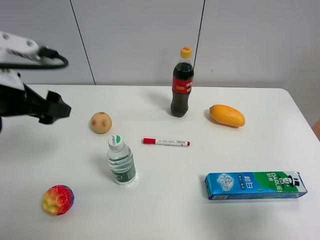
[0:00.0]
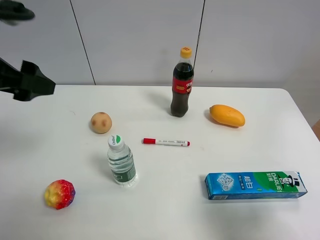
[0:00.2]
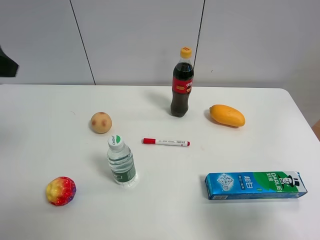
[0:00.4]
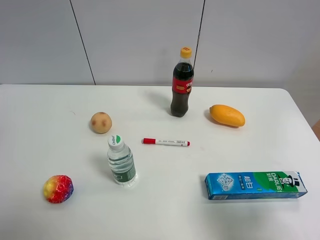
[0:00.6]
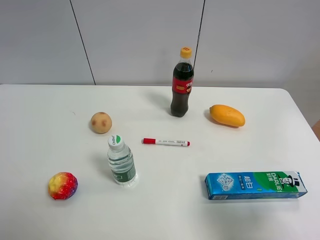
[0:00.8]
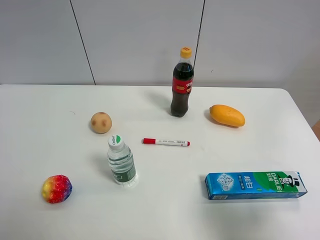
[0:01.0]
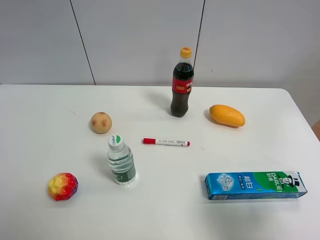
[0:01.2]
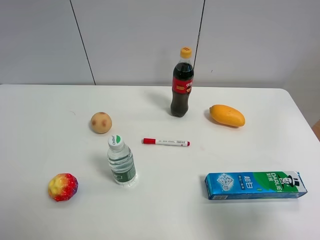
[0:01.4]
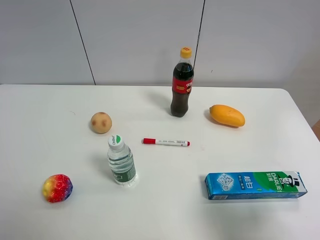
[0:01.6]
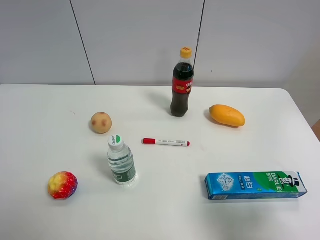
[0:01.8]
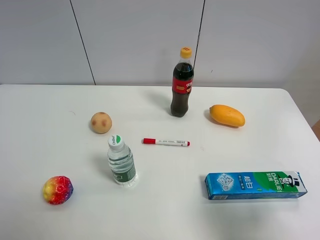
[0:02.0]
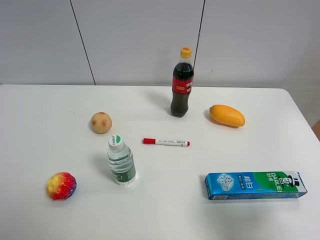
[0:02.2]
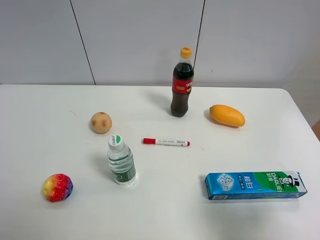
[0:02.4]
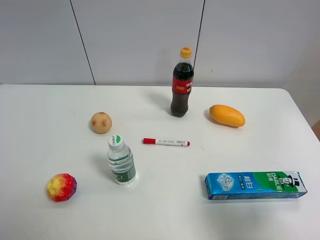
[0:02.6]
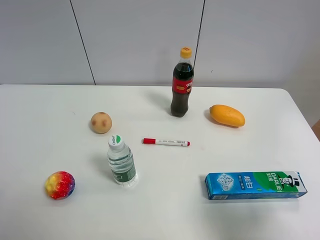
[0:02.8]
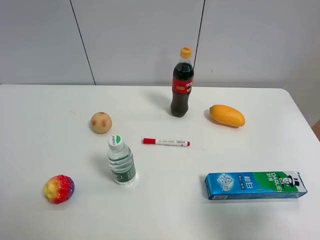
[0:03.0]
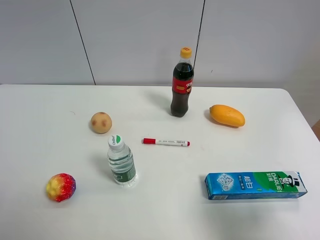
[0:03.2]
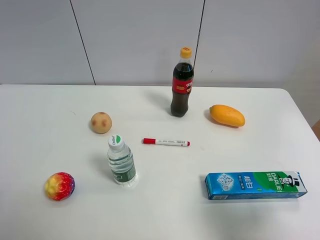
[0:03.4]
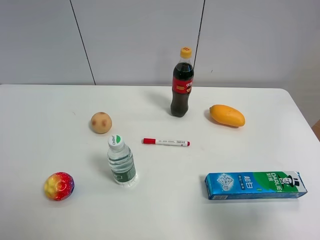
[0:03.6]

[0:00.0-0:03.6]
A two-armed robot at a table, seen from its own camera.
Task of the whole recording: the gripper move the object.
0.0 to 1.8 s: The left gripper moves backward, about 20 cm.

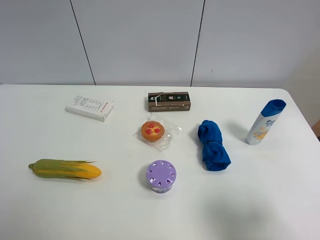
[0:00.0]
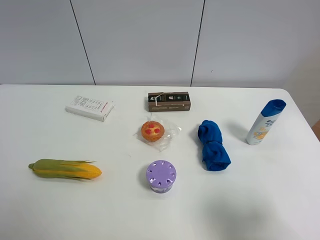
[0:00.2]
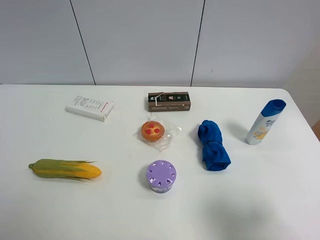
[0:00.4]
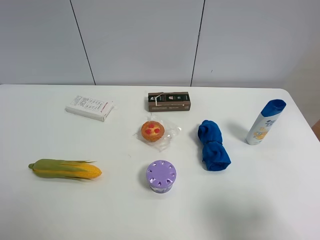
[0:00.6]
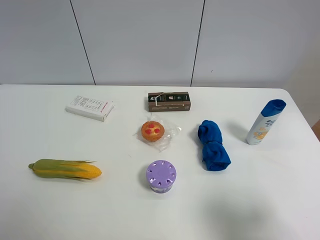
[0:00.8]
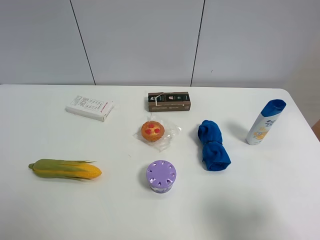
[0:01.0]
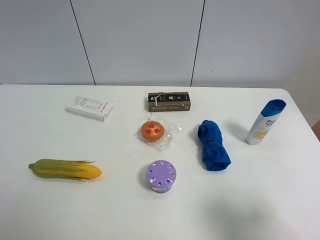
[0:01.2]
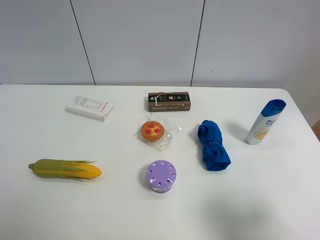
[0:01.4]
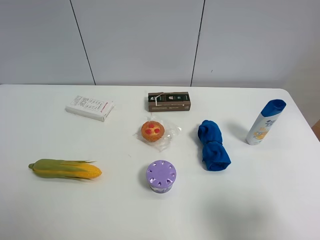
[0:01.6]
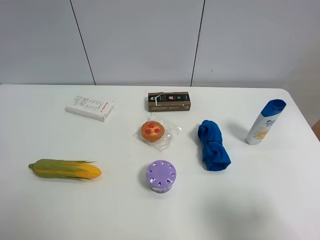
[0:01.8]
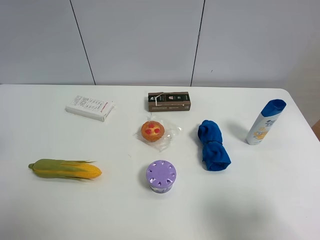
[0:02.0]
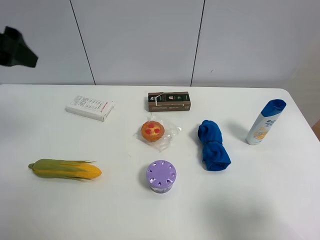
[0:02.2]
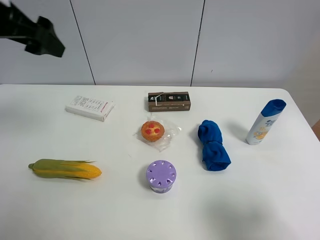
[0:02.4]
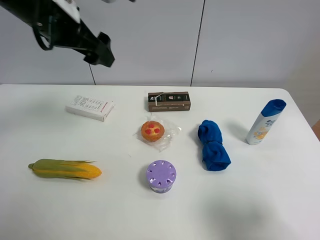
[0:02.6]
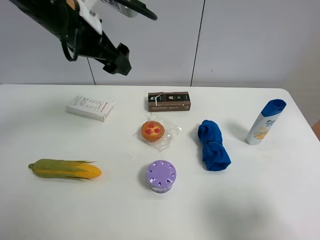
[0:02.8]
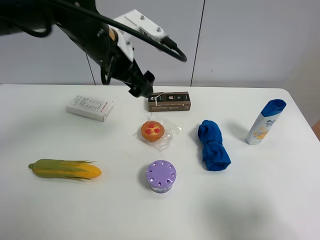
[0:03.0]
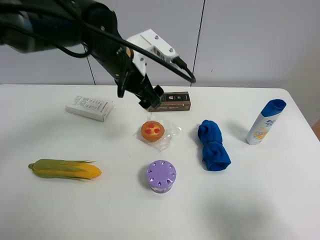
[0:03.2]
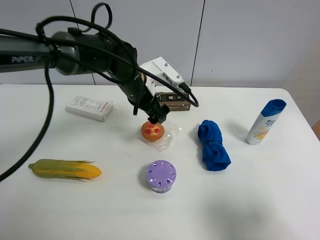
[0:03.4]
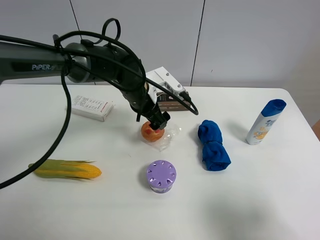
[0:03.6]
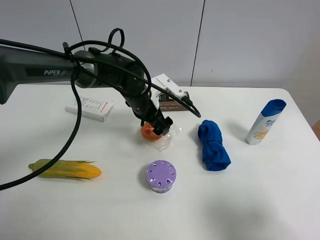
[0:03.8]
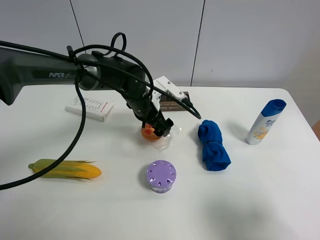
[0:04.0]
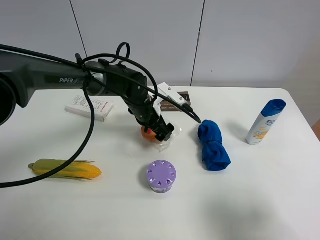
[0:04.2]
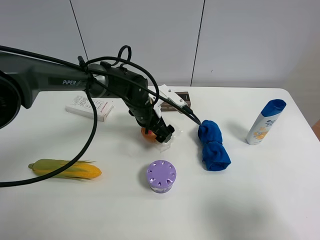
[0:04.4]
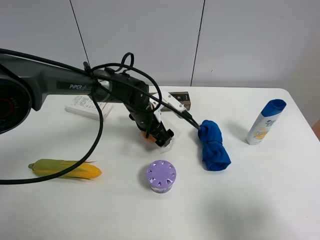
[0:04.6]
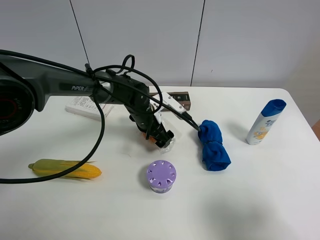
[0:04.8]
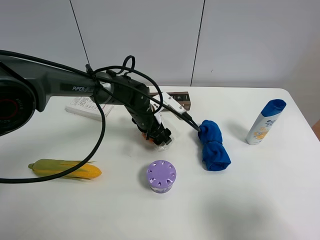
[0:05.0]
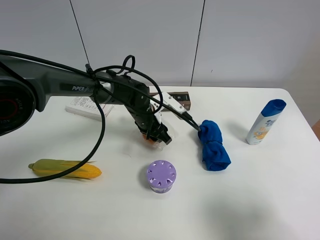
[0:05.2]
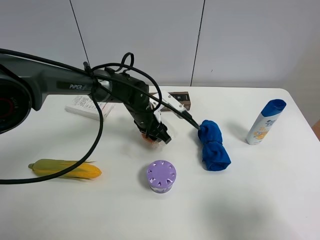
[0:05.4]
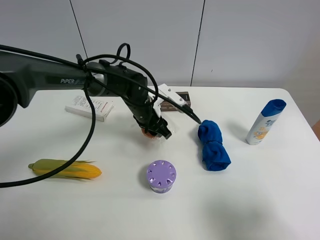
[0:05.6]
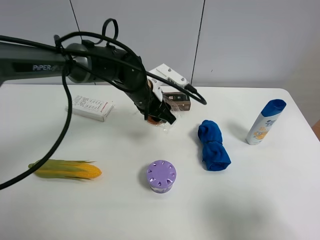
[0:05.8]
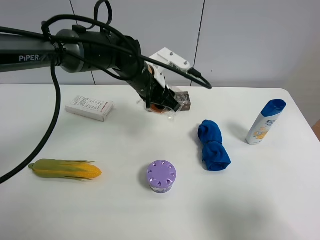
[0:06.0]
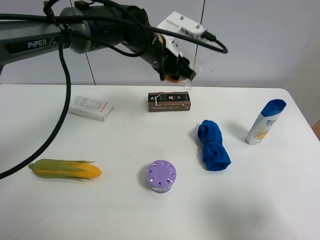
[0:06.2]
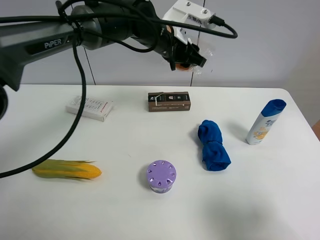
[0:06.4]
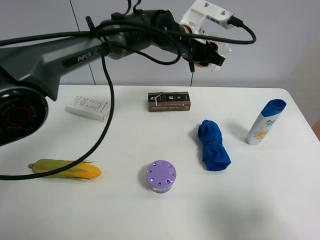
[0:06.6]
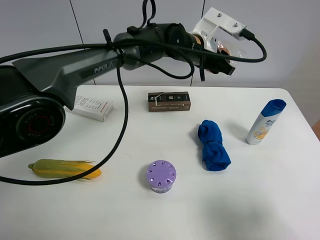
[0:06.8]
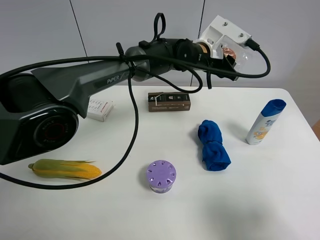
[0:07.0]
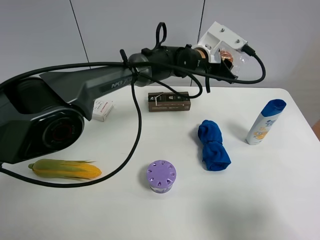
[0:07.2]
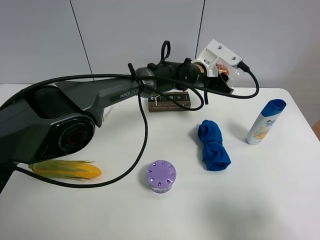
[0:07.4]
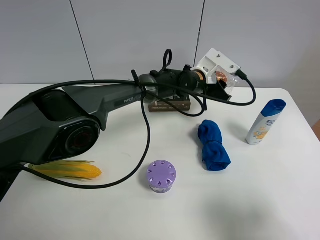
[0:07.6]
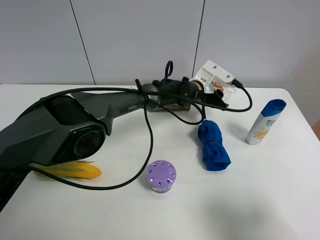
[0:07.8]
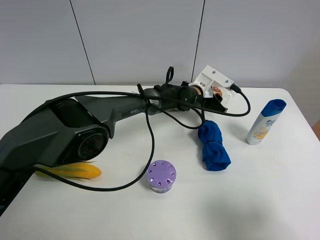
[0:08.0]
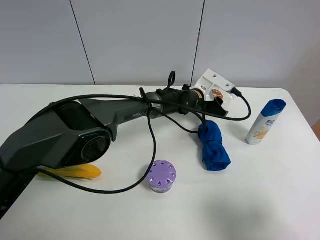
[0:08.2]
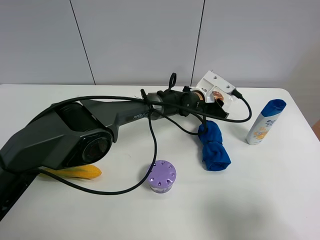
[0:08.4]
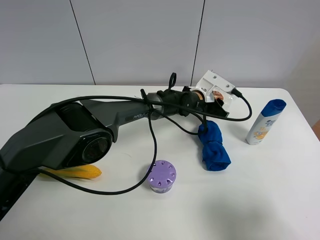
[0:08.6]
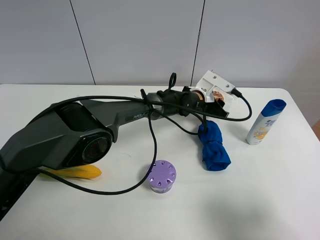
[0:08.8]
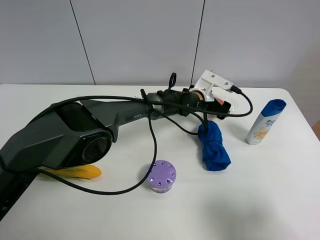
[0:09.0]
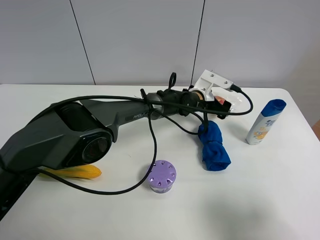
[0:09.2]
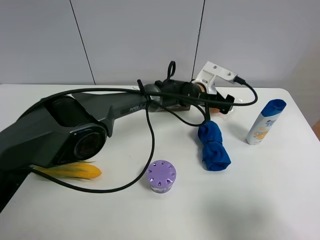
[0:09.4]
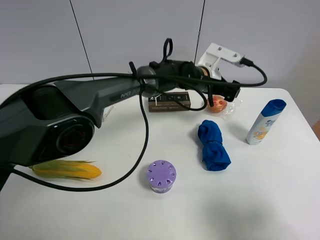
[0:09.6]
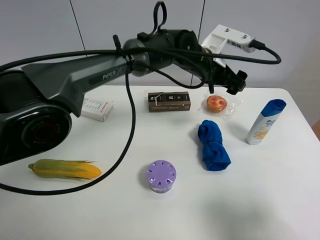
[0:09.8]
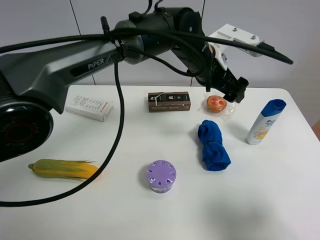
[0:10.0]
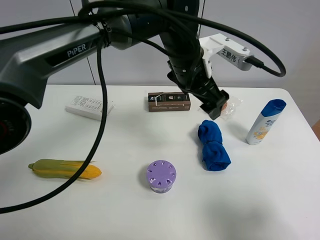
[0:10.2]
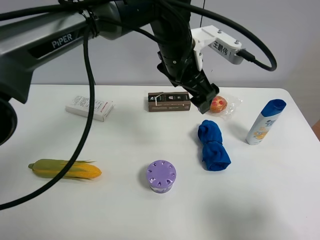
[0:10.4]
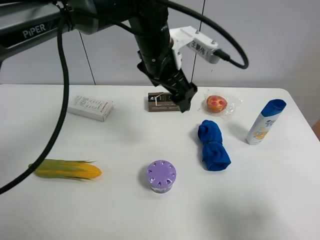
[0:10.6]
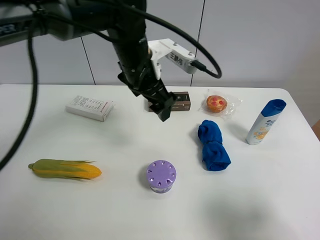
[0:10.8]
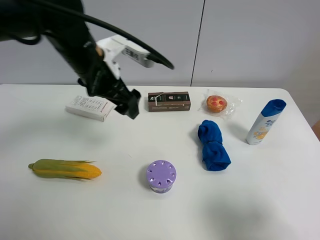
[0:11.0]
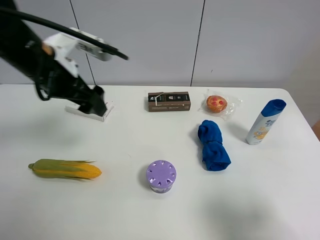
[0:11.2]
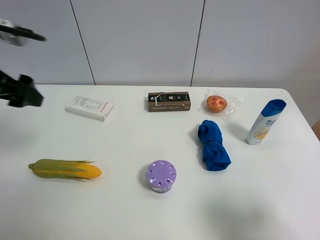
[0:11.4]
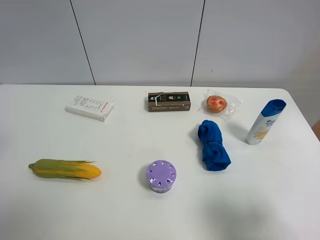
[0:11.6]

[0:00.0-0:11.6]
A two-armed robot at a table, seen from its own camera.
Task of the whole recording: the gripper move the object.
Step, 0.0 to 5.4 s: Grasp the egg tart with the left gripper.
Step, 5.6 to 8.8 s: Place the egg tart on the table with the left gripper.
1.4 to 2.8 s: The left gripper is displaced forward and to the right by about 35 cm.
2.8 to 4.4 s: The left gripper shifts about 20 cm downward.
4.4 to 5.8 s: The left gripper moves upward, some 5 cm, and closes up.
5.8 to 7.2 s: The left gripper heads to the right and forward, covering some 15 cm.
7.2 to 8.8 s: The left gripper is displaced downward by some 10 cm, and opens.
8.8 to 10.2 s: The left gripper shifts about 20 cm upward and backward, and opens its fingers.
10.2 to 11.6 s: The left gripper heads to the left and backward, covering about 40 cm.

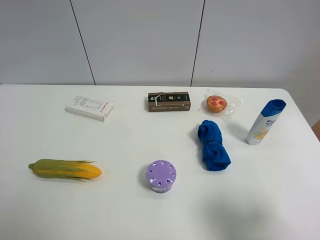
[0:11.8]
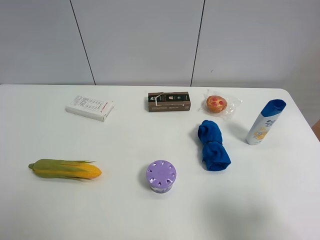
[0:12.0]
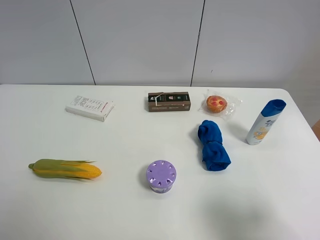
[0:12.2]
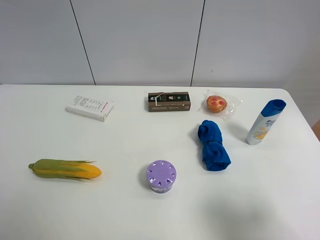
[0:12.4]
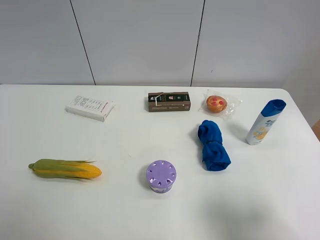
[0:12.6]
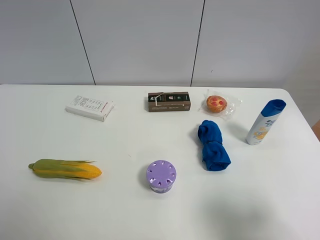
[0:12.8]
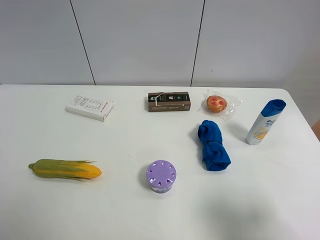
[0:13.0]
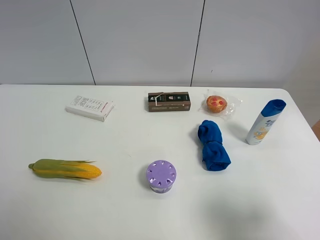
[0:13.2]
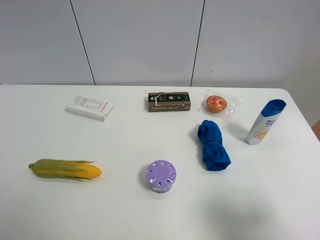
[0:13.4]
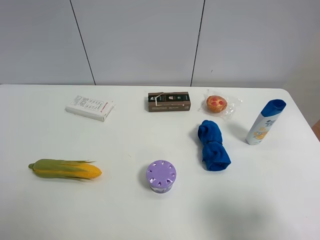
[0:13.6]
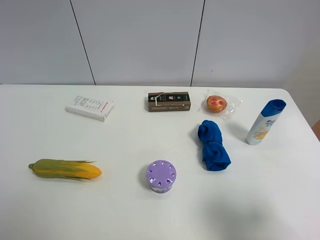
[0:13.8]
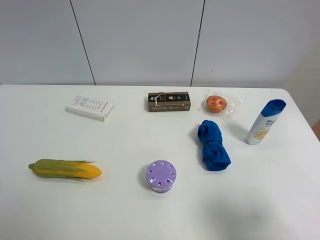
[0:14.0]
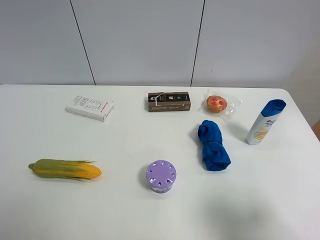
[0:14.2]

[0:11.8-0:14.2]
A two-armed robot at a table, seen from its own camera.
Task of the whole recording: the gripper move the object.
13.0 to 14.2 s: Both grippers stay put.

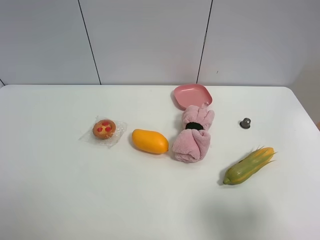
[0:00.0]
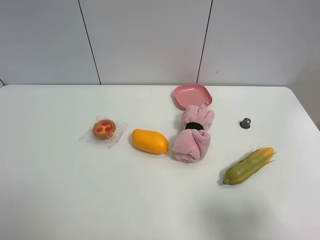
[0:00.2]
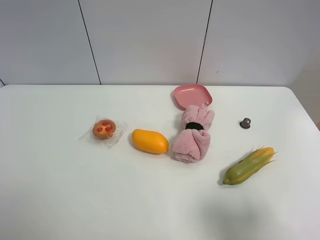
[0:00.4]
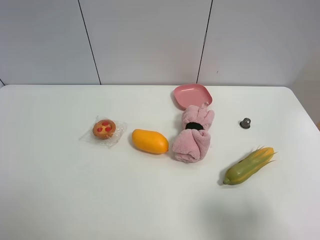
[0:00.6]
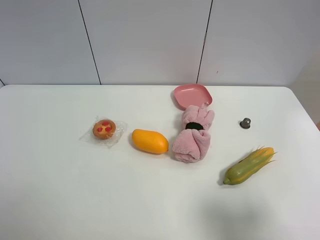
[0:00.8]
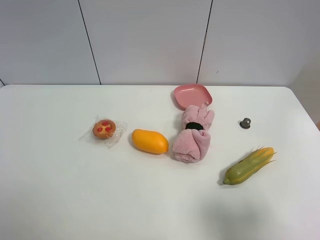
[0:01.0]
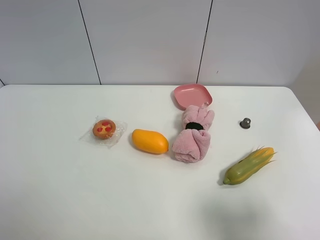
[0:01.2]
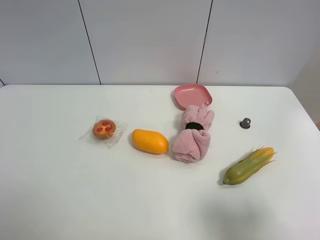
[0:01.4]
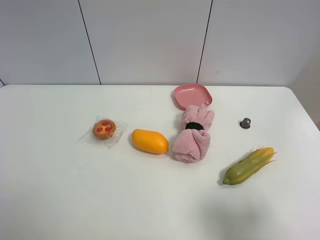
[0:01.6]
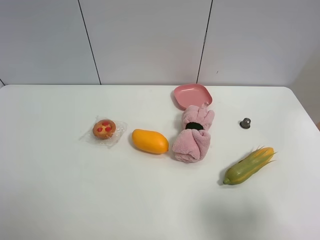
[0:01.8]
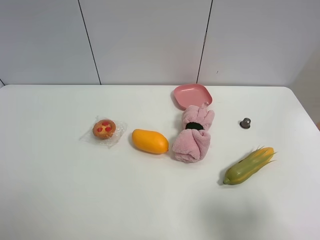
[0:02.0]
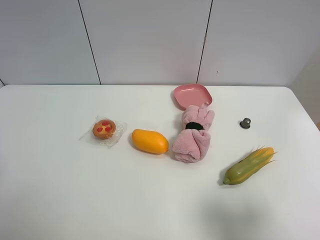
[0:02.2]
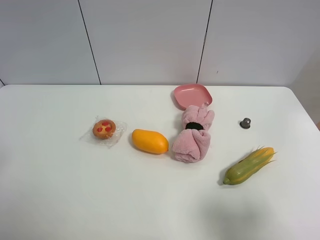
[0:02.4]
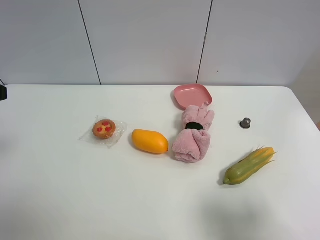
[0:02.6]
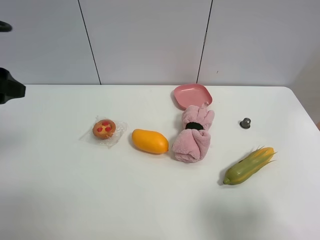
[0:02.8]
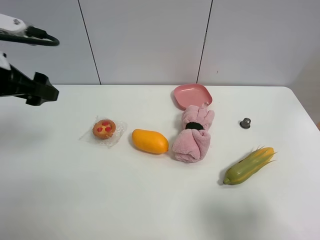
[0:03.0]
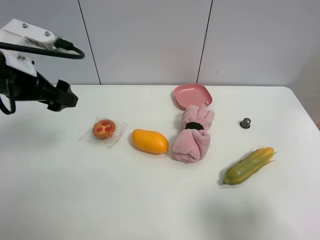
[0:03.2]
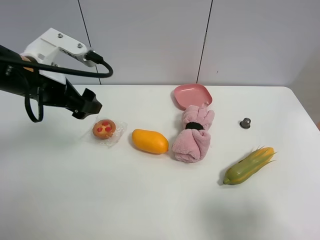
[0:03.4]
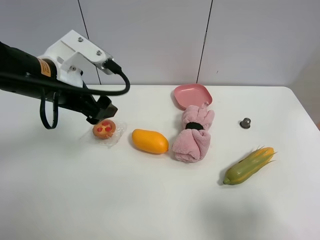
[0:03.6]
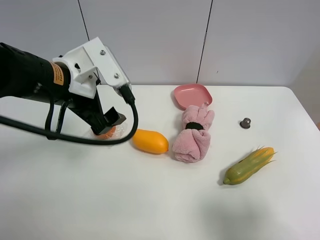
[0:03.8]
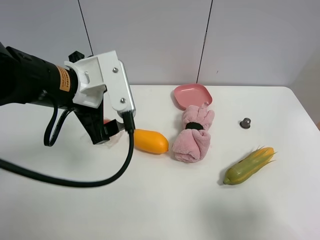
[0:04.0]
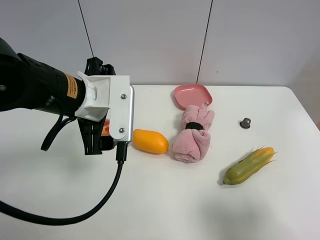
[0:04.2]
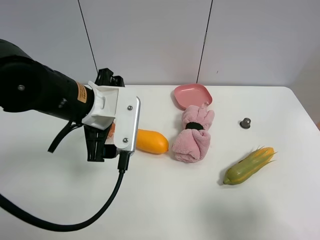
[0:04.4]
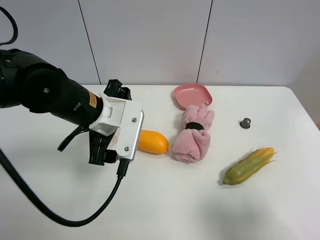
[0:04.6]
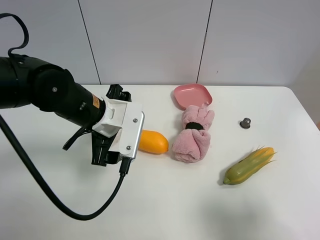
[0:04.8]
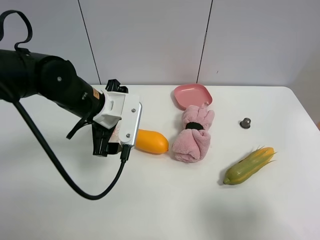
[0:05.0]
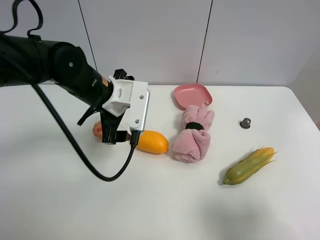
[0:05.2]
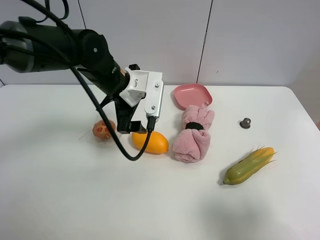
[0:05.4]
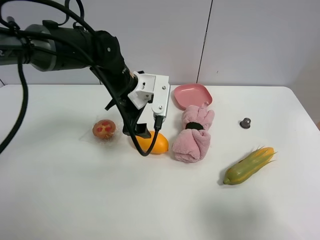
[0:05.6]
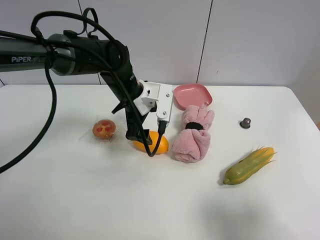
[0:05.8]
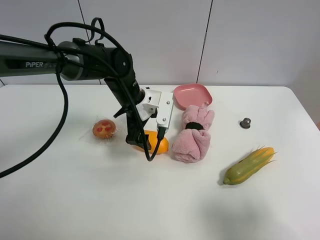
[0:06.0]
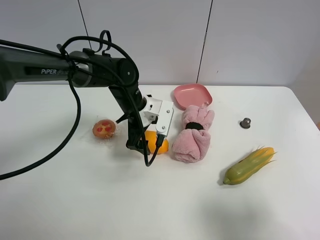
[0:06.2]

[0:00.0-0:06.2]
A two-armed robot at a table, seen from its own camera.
Task of the whole recording: the gripper move the object.
0.0 to 1.6 s: Neither gripper changes place.
1.6 to 3.2 s: The left gripper shifts roughly 25 cm forward.
3.2 to 4.6 s: The left gripper is displaced to the right and downward by approximately 15 cm.
4.6 to 6.2 s: The left gripper is displaced forward, downward and to the right by about 15 cm.
